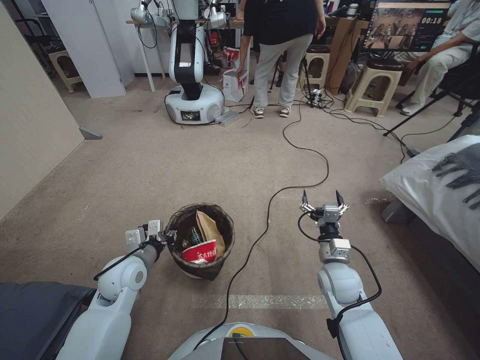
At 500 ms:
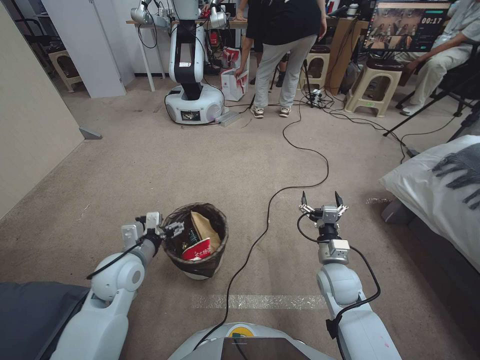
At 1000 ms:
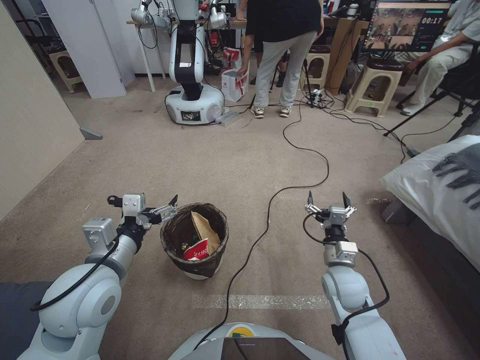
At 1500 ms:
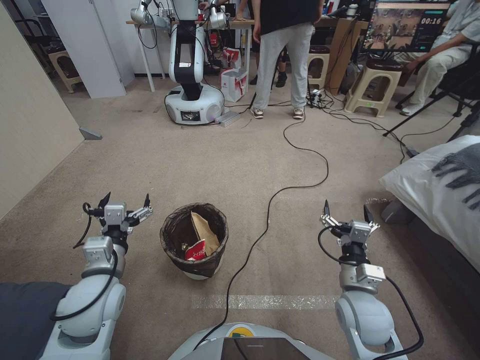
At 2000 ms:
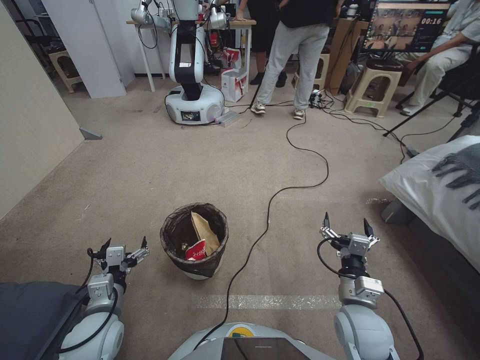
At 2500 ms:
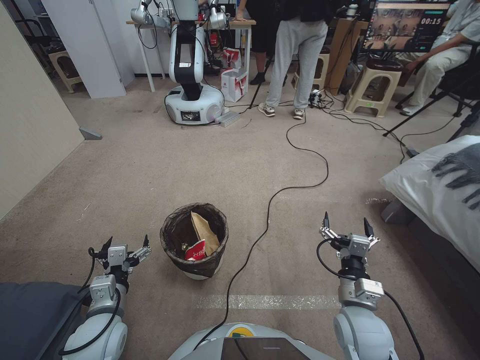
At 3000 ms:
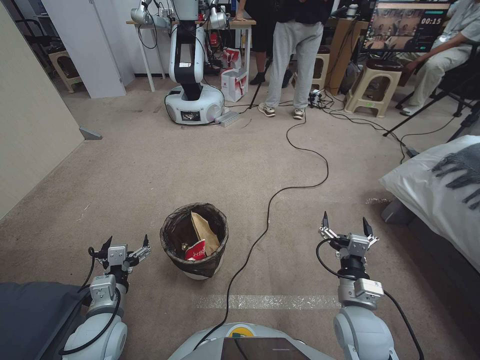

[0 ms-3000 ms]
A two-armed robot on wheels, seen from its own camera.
Task of the whole recording: Pick up the trash bin, then pick up the garbage from the floor and place it into the trash bin.
0 ms to 1500 ms: The right gripper travels backward by some 5 cm; the left gripper goes about 15 cm upward and backward, and opens.
1500 ms to 3000 ms: The left gripper travels downward by approximately 10 cm.
